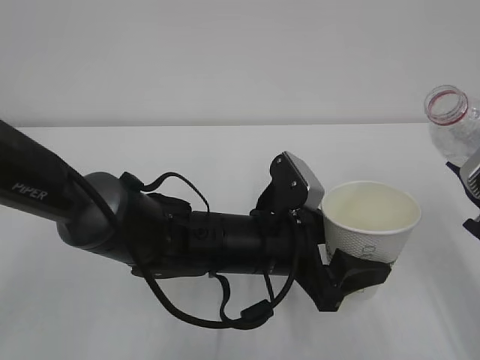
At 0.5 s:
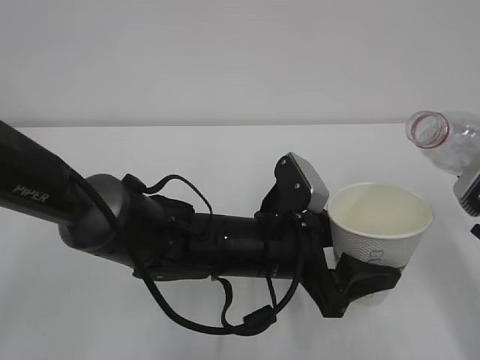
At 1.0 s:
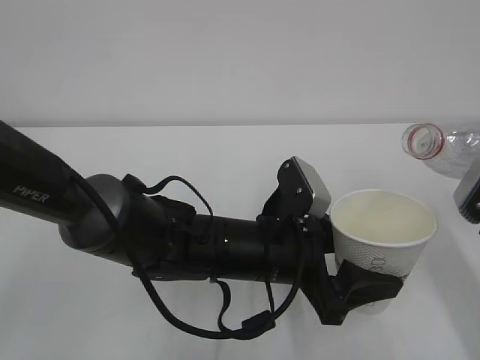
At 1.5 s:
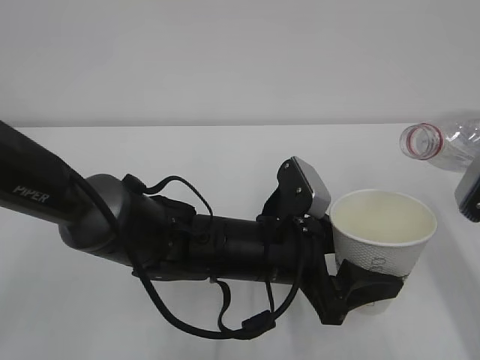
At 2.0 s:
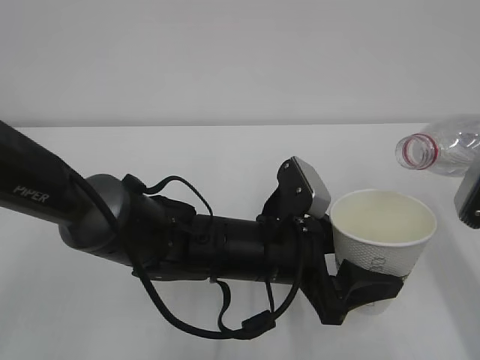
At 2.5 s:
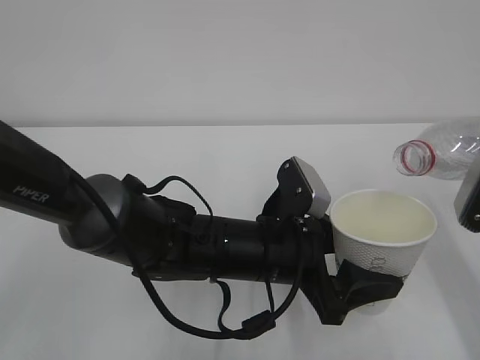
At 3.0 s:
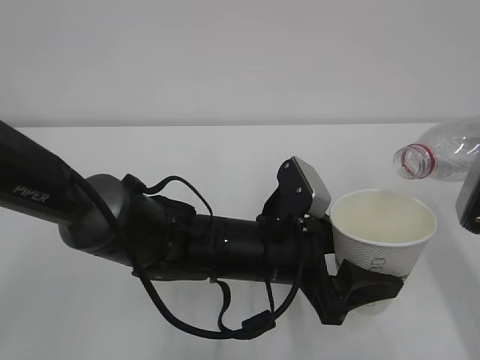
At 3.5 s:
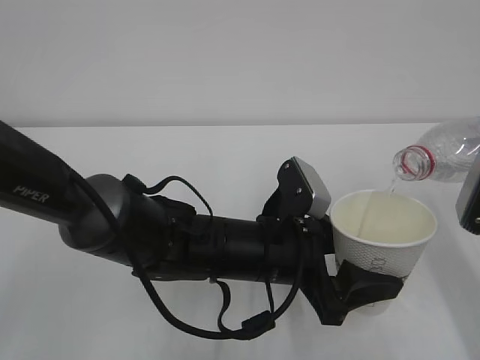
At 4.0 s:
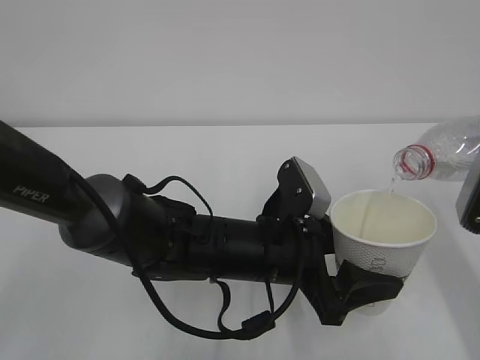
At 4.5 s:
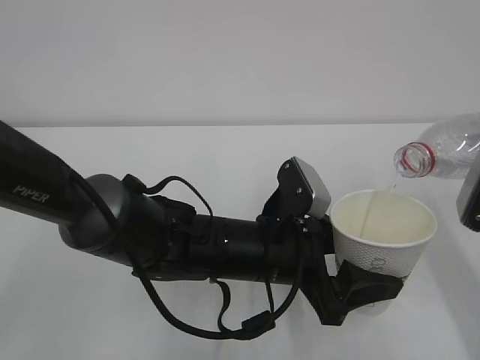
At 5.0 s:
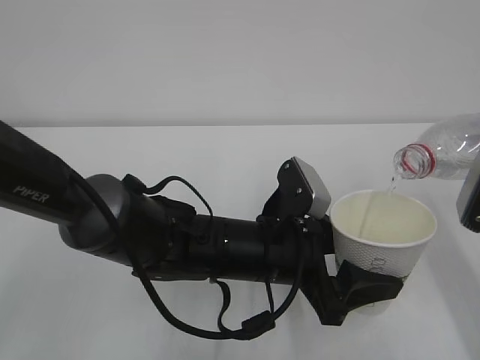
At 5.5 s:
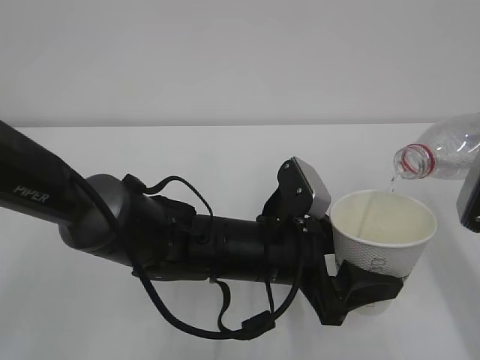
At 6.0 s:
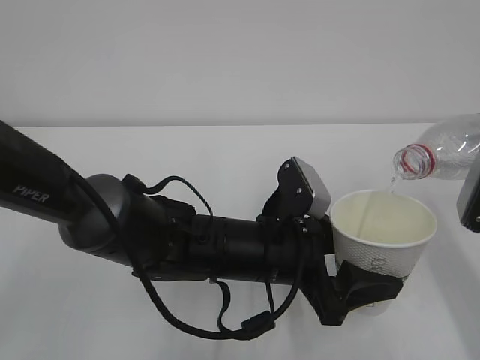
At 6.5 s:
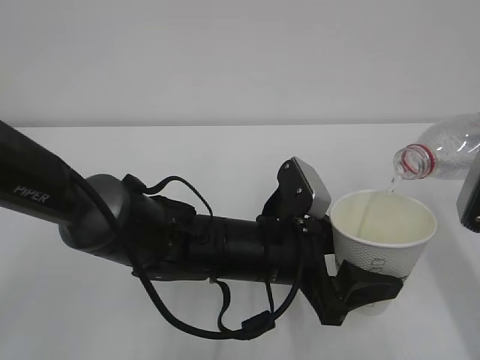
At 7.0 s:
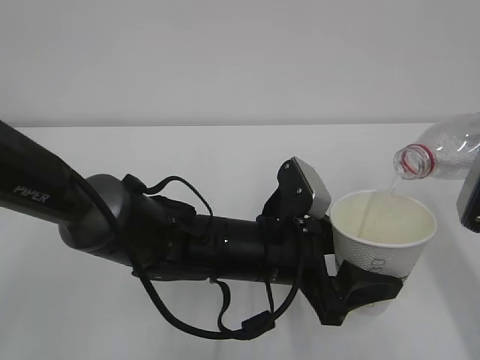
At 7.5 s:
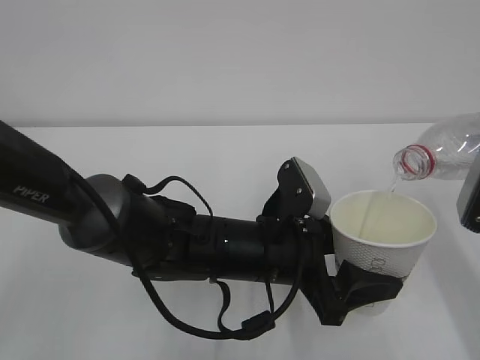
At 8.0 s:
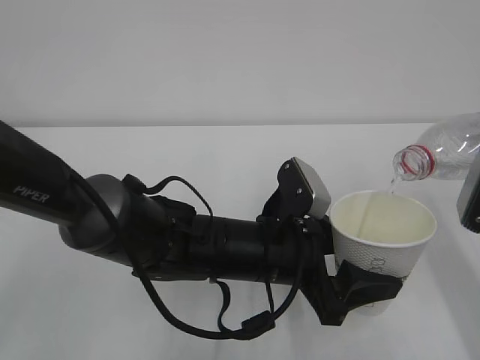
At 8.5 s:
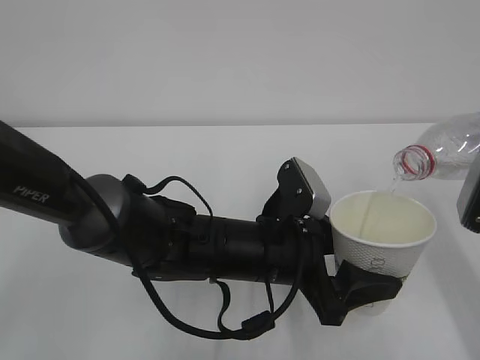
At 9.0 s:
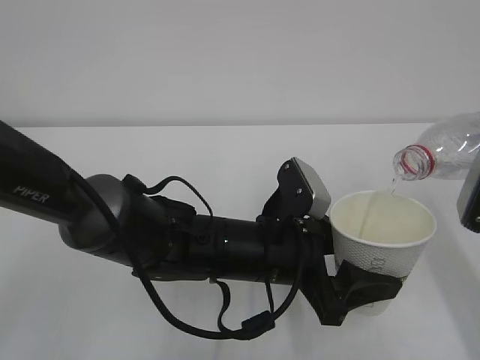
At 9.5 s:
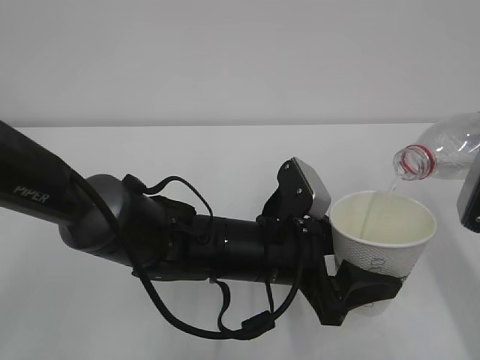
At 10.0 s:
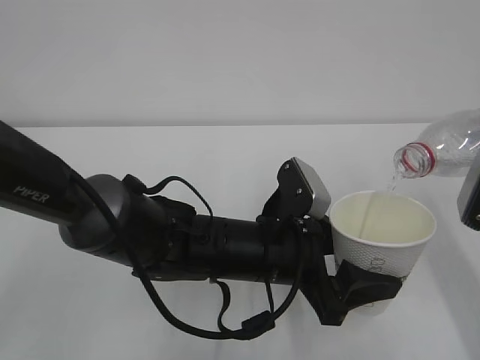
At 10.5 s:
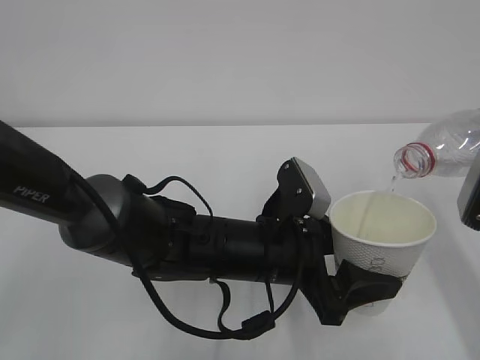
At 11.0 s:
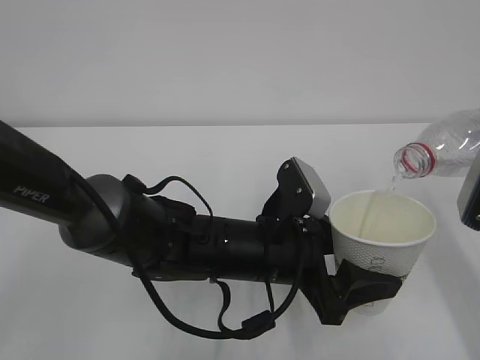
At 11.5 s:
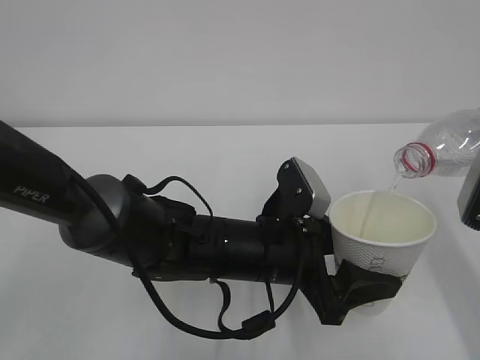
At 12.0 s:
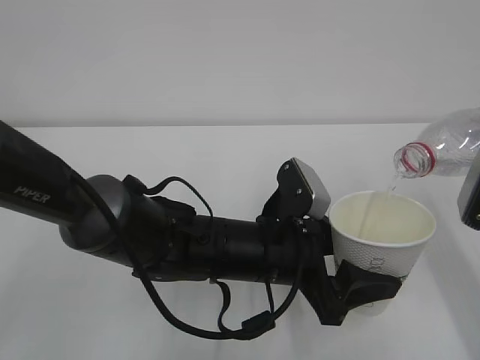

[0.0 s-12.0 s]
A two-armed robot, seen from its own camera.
2.0 to 4.0 s: The grippers make only small movements.
4.0 to 12.0 s: Both grippers stay about where they are.

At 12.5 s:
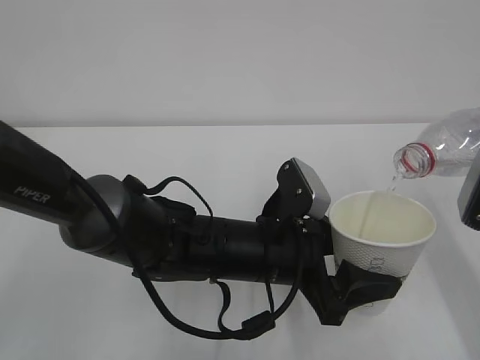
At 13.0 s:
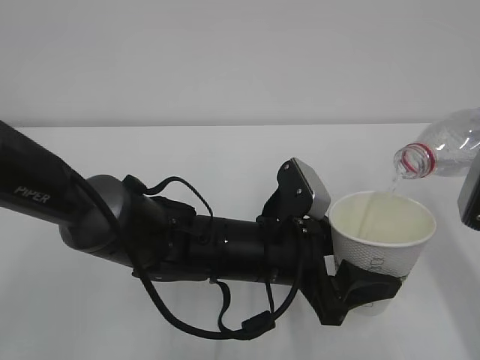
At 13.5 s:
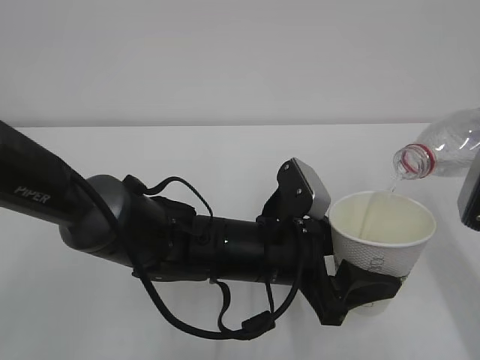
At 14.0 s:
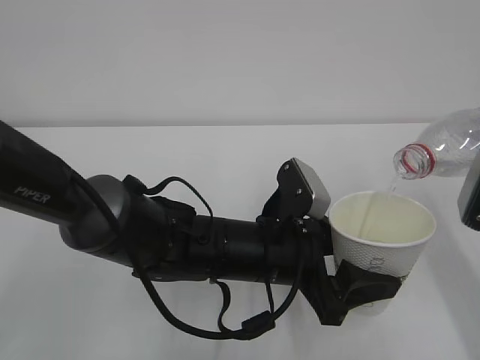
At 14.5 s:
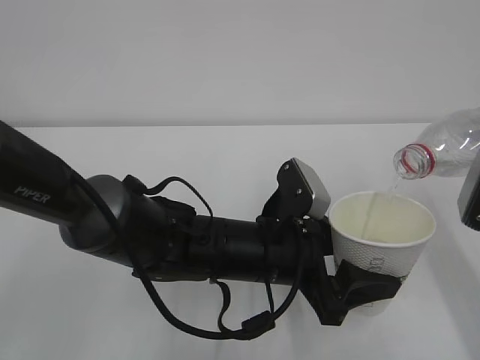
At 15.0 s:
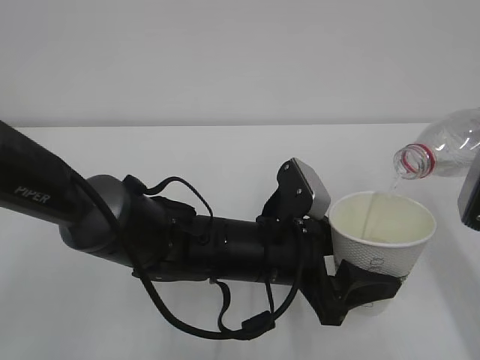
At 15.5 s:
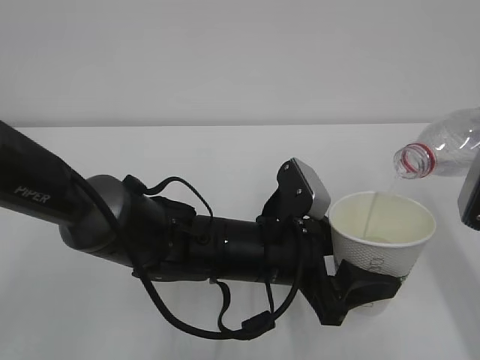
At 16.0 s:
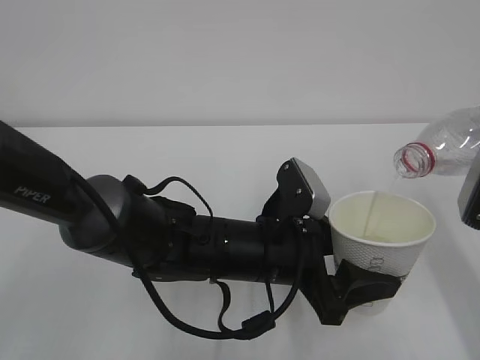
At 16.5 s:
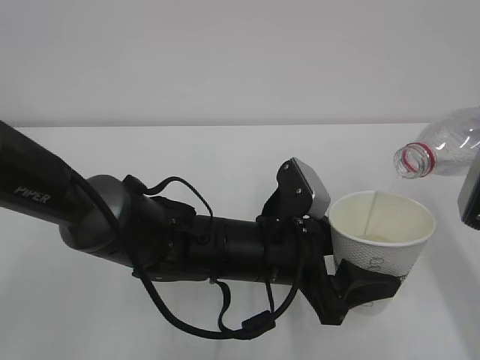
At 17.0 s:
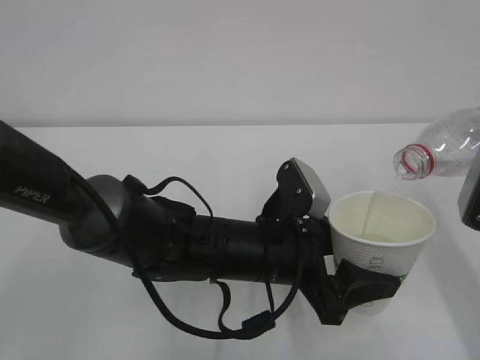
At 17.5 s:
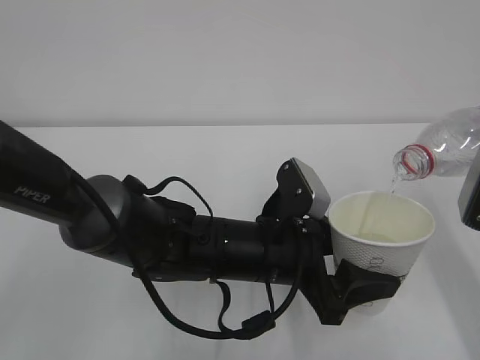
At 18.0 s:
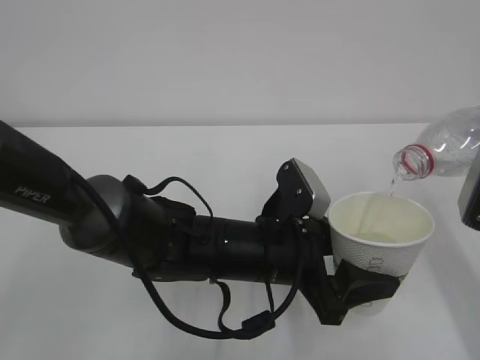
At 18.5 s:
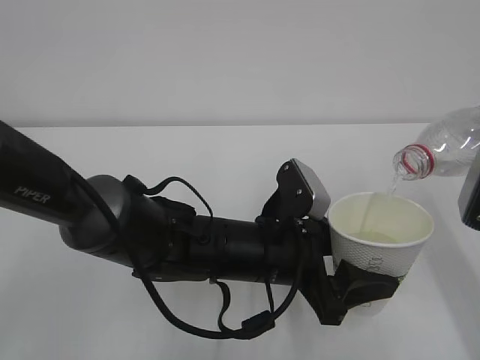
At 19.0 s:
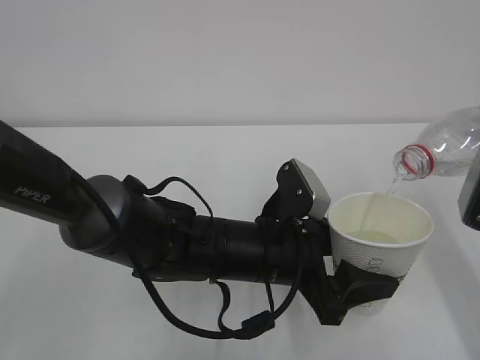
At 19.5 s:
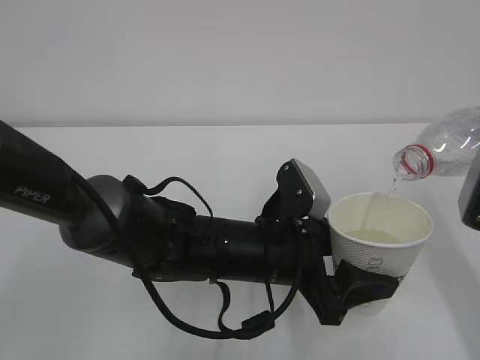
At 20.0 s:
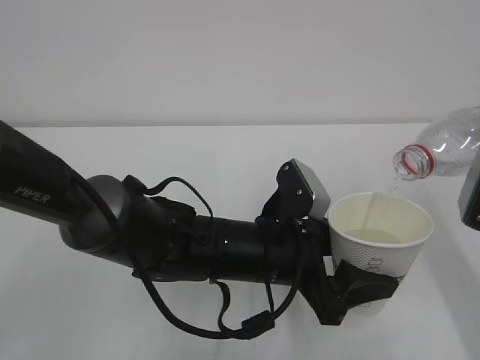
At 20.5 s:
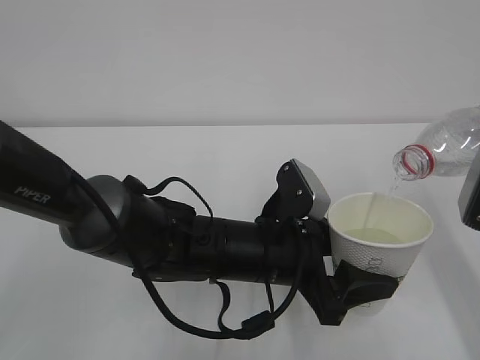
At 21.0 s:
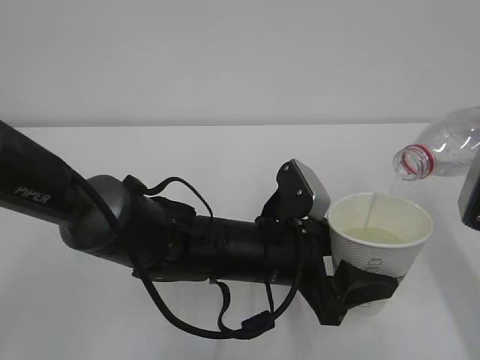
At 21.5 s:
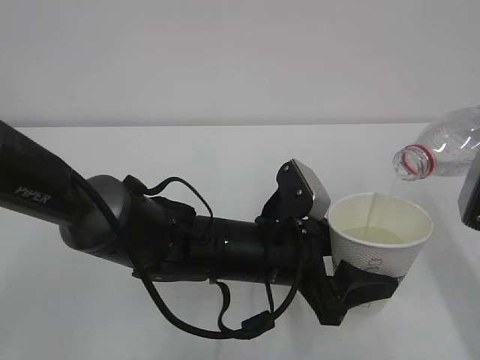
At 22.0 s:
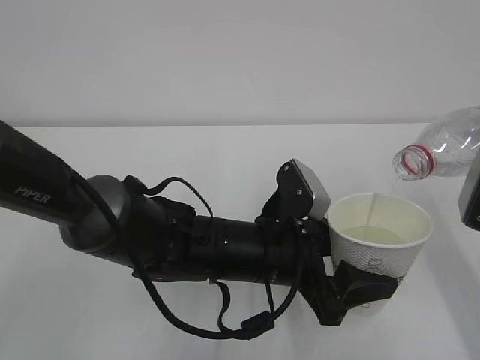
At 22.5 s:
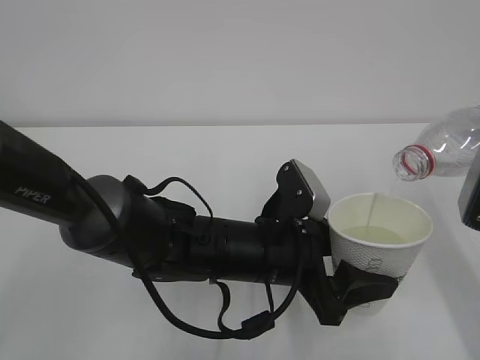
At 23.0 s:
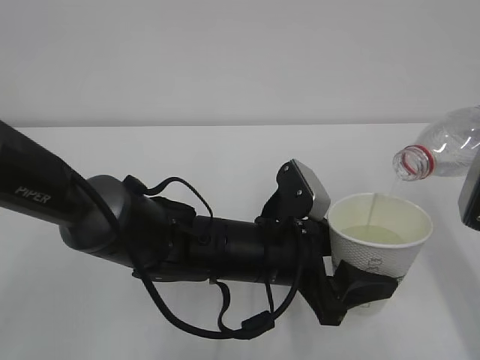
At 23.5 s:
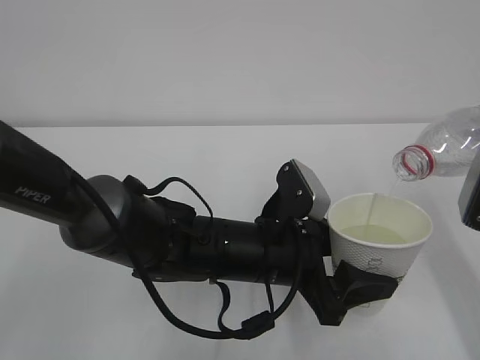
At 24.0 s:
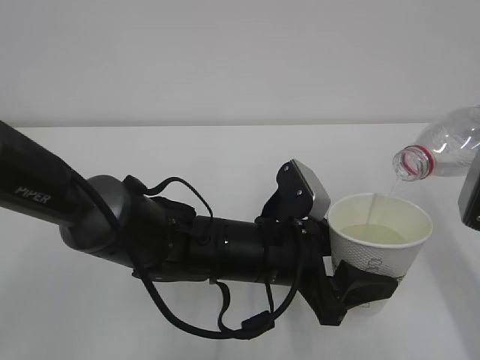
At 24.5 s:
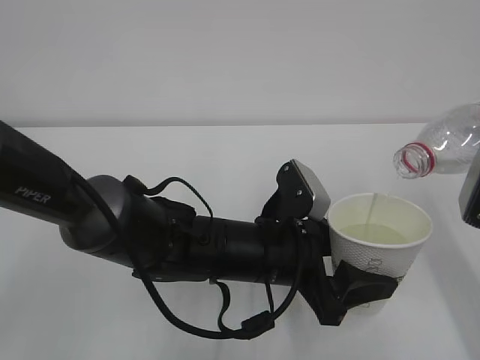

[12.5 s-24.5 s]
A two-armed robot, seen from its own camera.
12.5 to 24.5 s: Neither gripper changes place.

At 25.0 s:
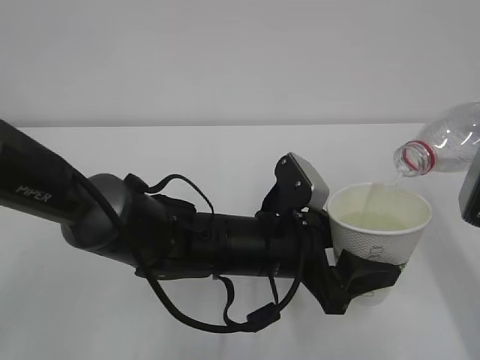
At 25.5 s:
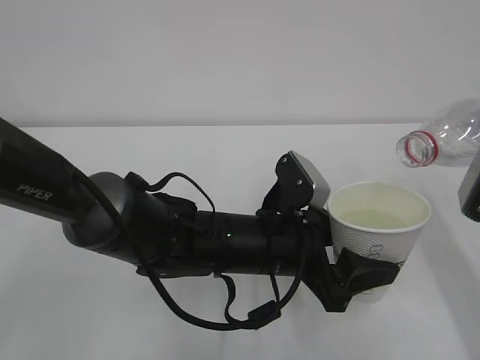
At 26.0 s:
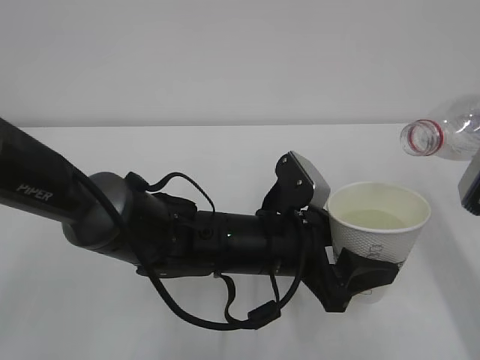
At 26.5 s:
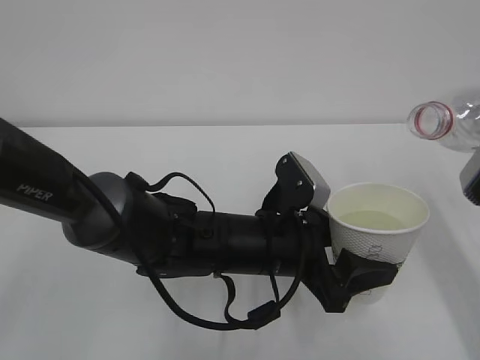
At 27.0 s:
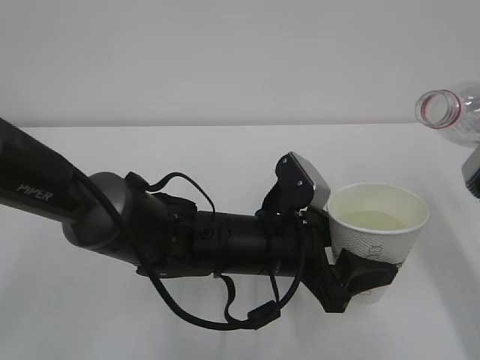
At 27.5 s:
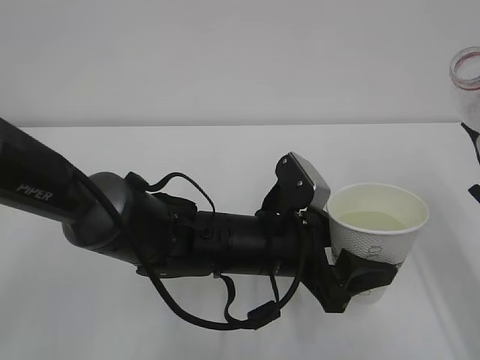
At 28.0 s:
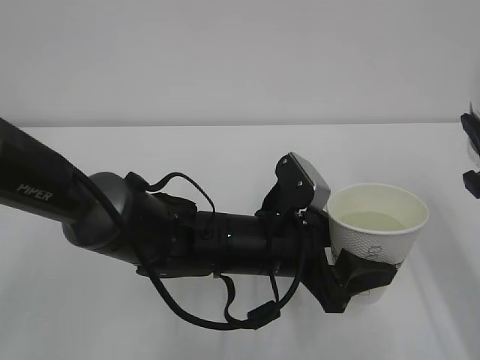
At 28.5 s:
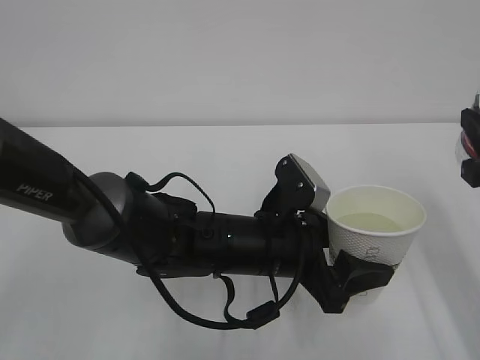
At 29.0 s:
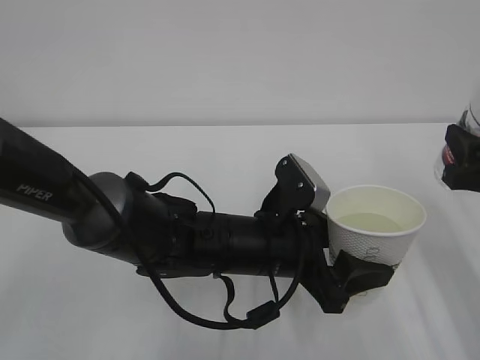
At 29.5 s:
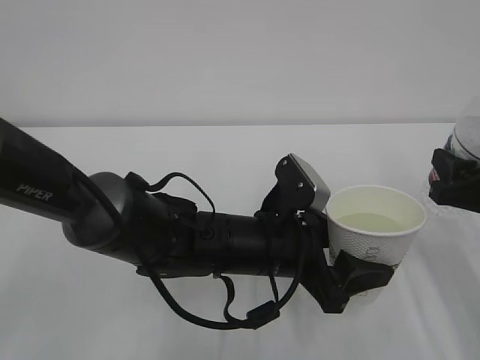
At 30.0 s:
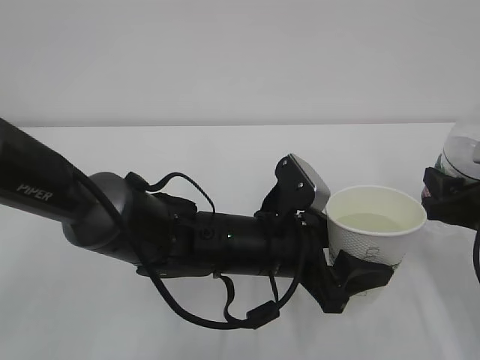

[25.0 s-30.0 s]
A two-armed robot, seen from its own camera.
27.5 to 30.0 s: The right gripper travels downward by about 10 cm.
